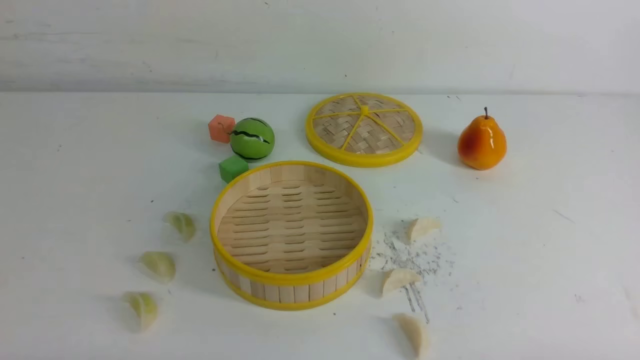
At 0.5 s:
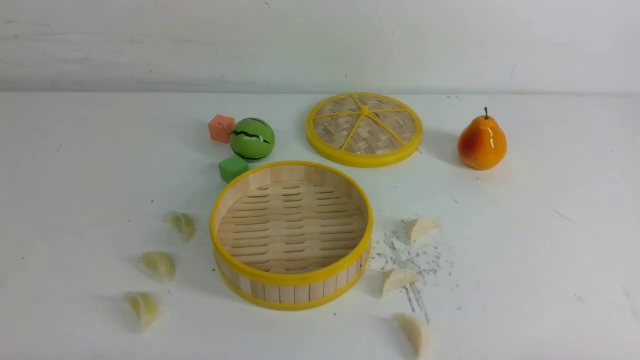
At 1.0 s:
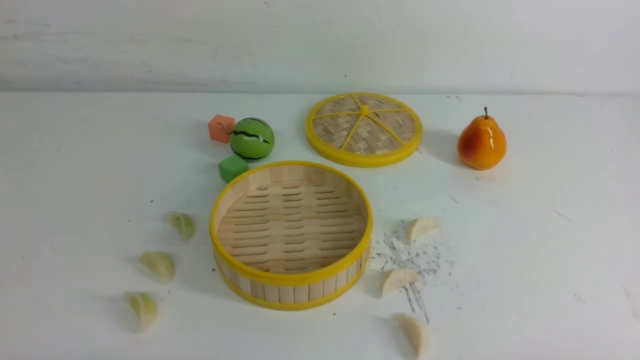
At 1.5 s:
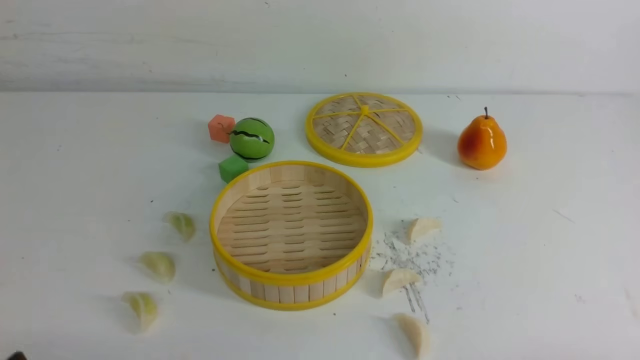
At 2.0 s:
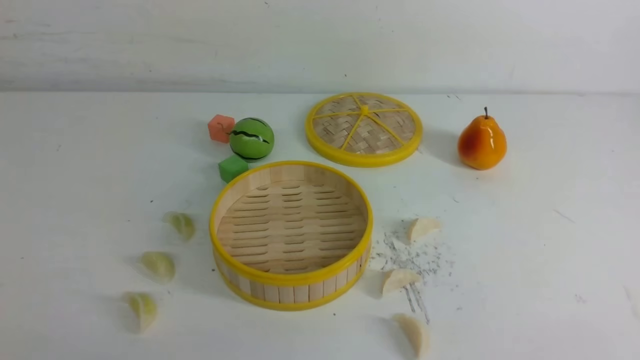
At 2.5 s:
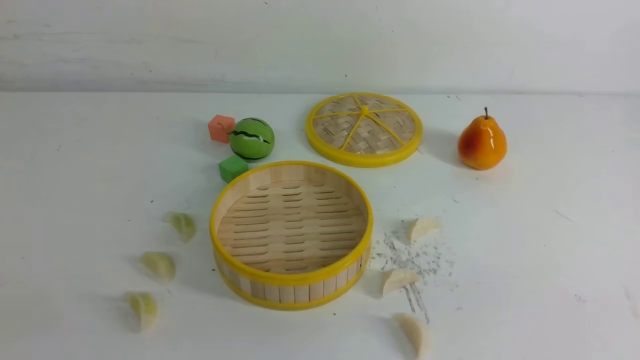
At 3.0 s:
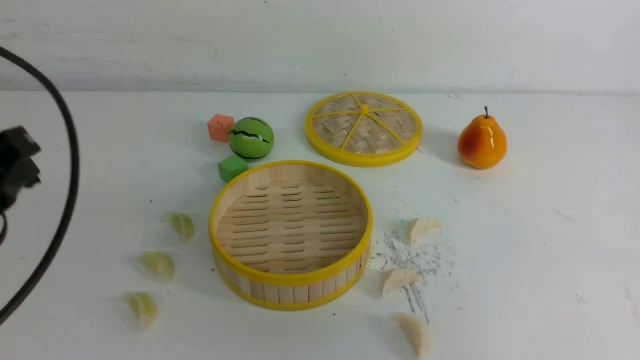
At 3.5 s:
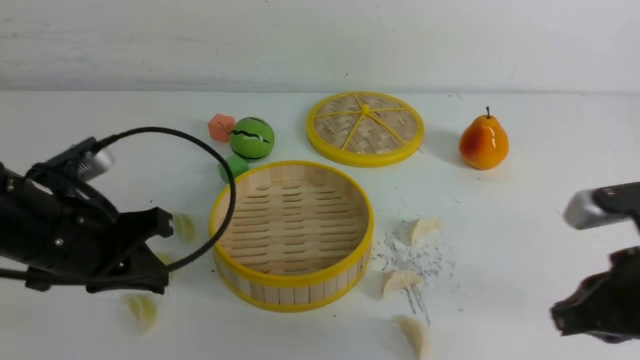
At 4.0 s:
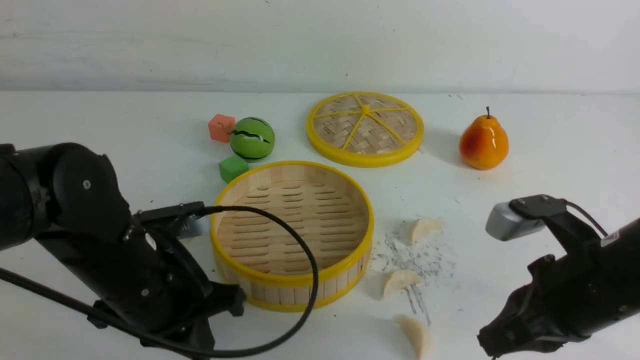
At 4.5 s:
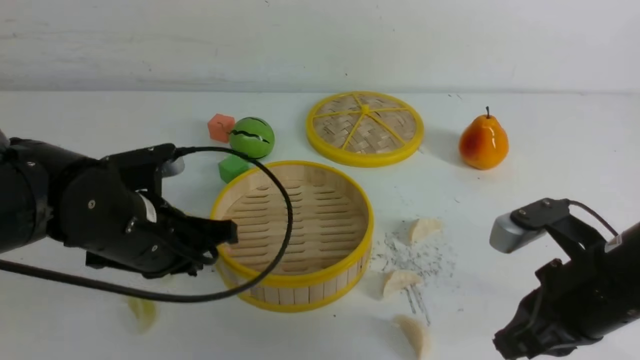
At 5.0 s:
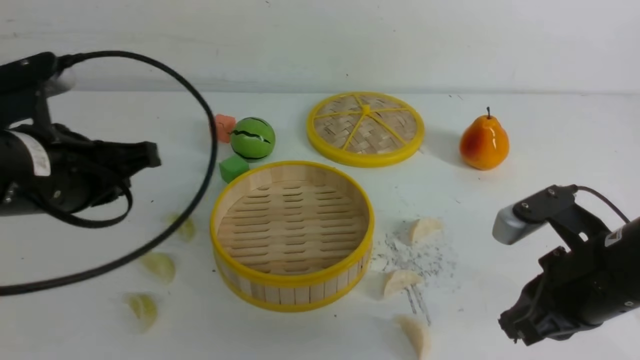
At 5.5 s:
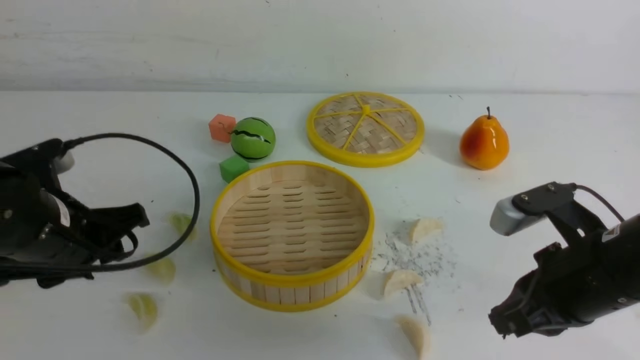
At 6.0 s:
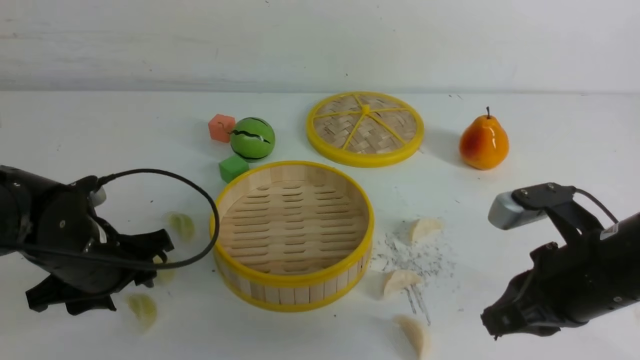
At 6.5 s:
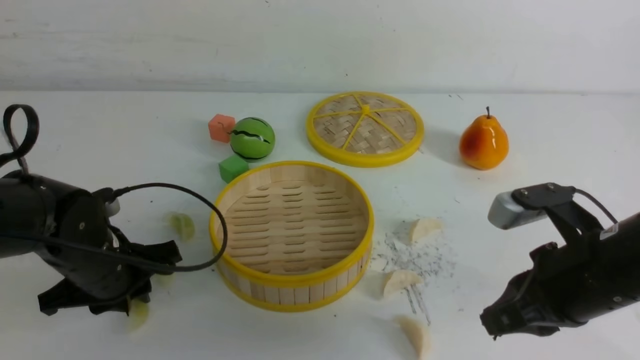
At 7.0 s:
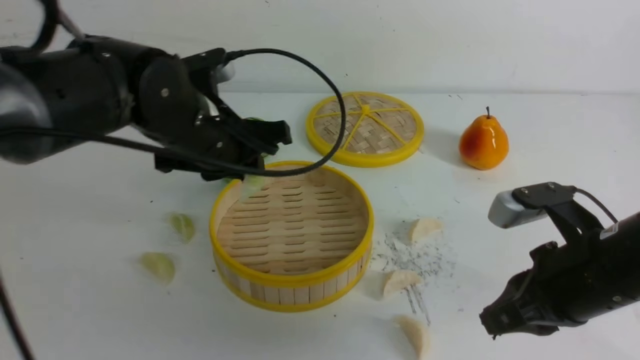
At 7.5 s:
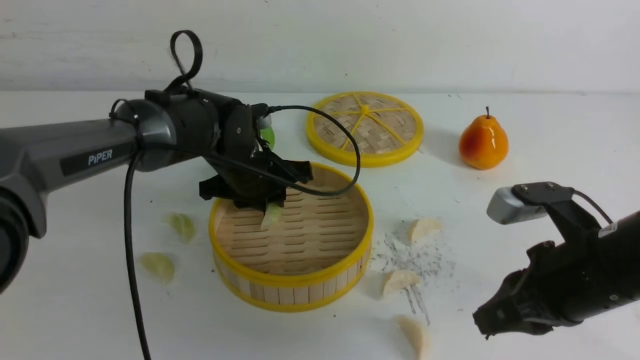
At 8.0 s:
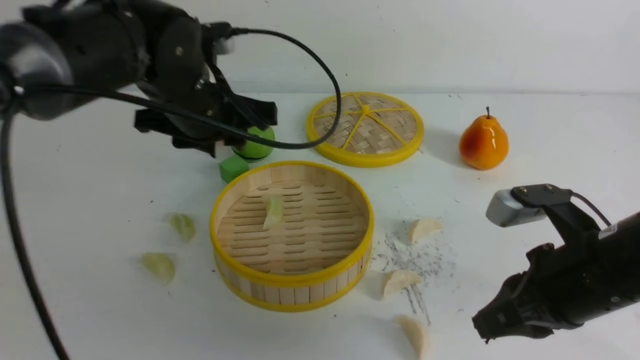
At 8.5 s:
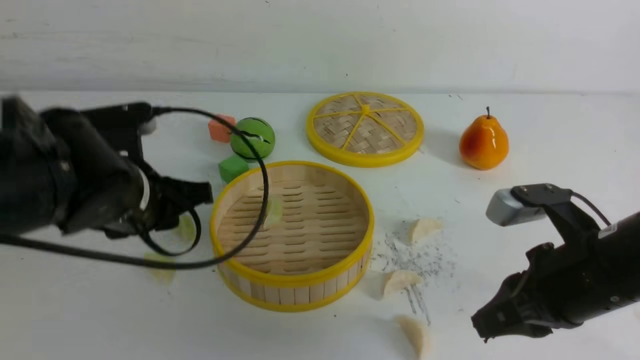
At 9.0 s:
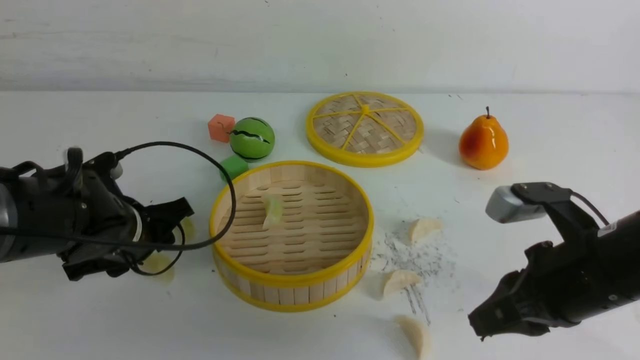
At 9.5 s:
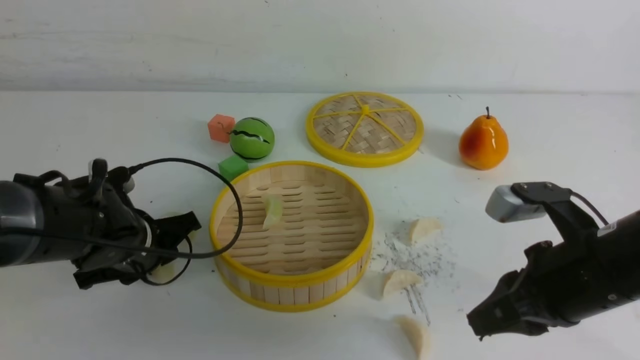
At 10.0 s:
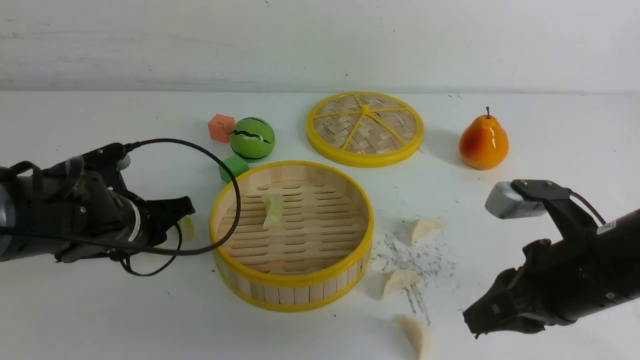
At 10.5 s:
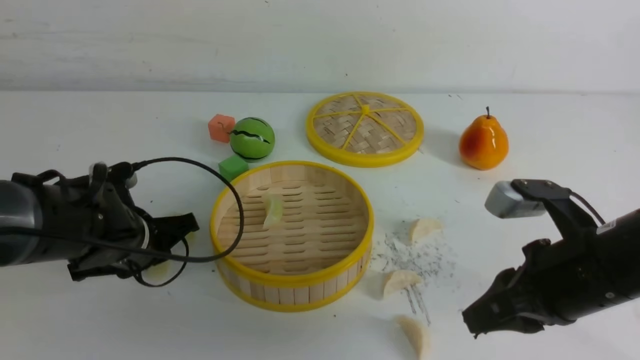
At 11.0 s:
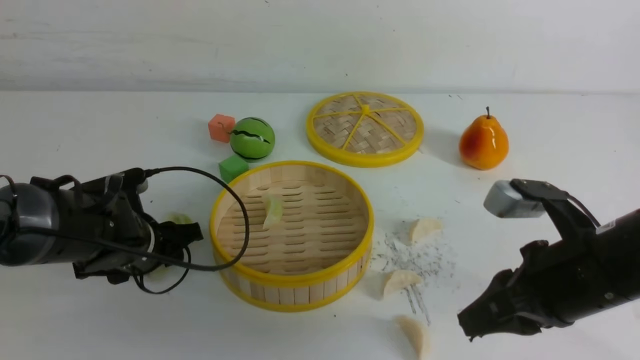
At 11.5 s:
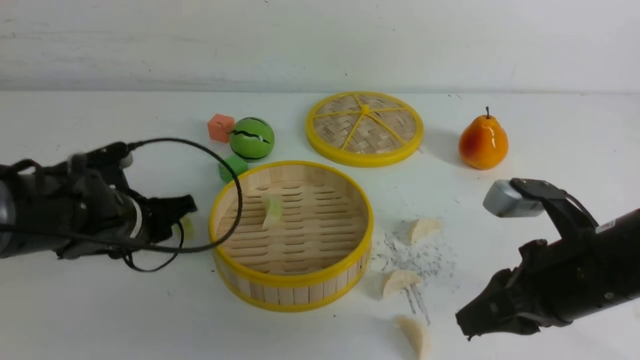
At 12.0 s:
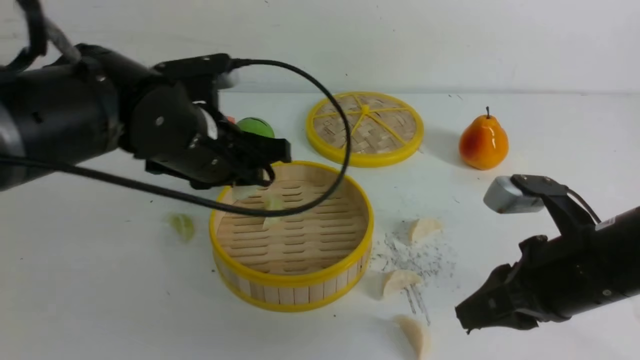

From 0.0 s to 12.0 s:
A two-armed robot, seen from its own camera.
Task of the whole recording: put the dumplings into the steamer on the white table.
Step, from 0.0 s to 6.5 s: use the left arm to grab a dumpling.
Step, from 7.0 s to 7.5 s: use the left arm to put the dumpling into the steamer.
Step, from 8.0 s to 9.5 s: use the left arm to grab a dumpling.
From 2.0 s to 4.0 s: The left gripper moves forward and to the right, approximately 20 cm, and closes. The right gripper goes about 20 cm forward and to the left.
From 4.0 s to 6.0 s: The left gripper is displaced to the left by some 5 cm, and opens.
From 6.0 s to 8.0 s: The left gripper moves upward, to the right and forward, approximately 20 cm, and closes, then reopens.
From 8.0 s to 10.0 s: The left gripper is displaced downward and to the left by roughly 15 cm.
From 10.0 s to 12.0 s: The left gripper moves upward and to the right, some 15 cm.

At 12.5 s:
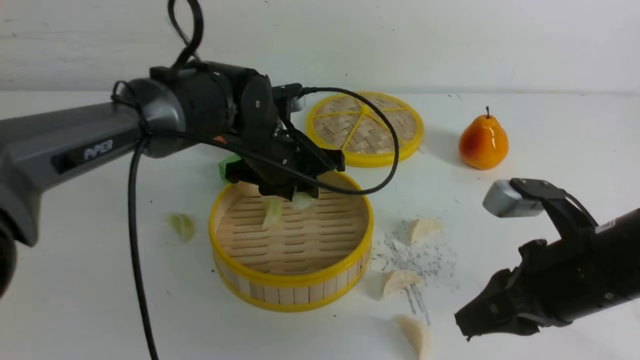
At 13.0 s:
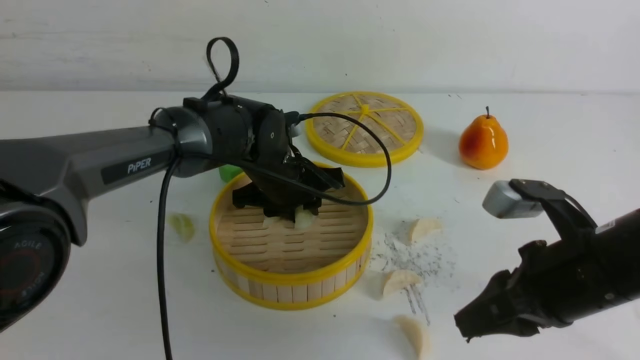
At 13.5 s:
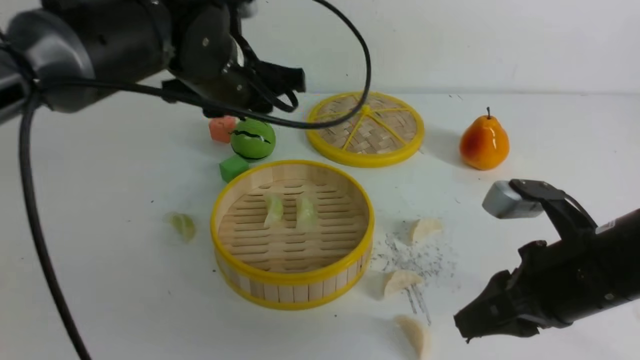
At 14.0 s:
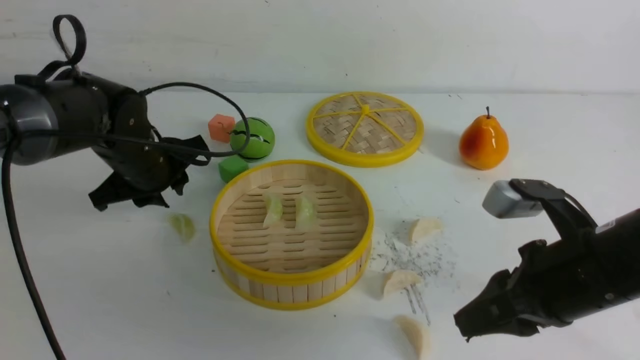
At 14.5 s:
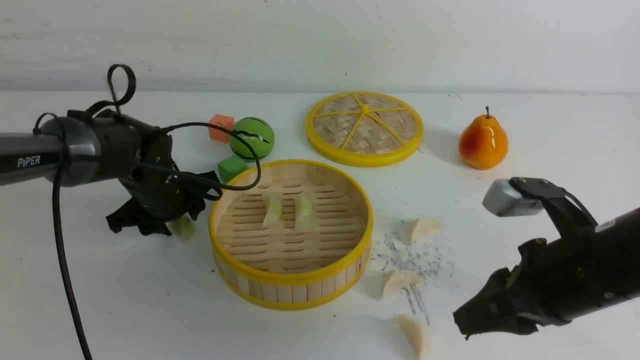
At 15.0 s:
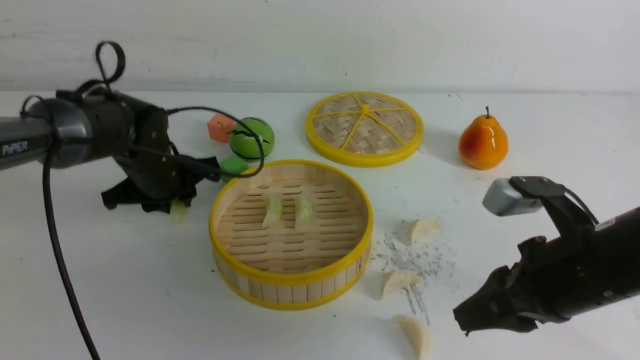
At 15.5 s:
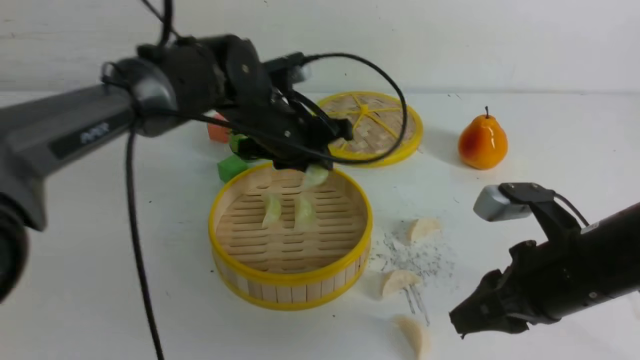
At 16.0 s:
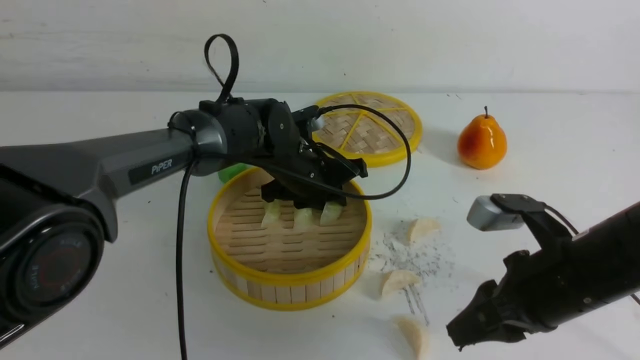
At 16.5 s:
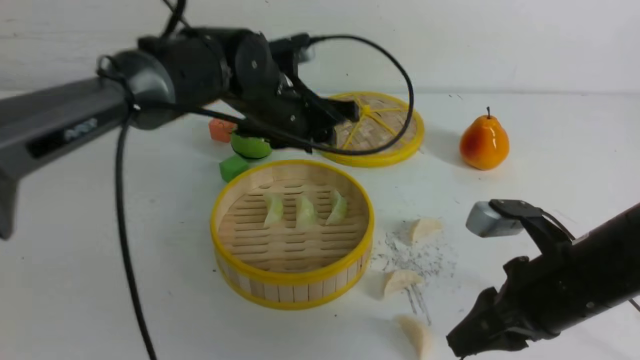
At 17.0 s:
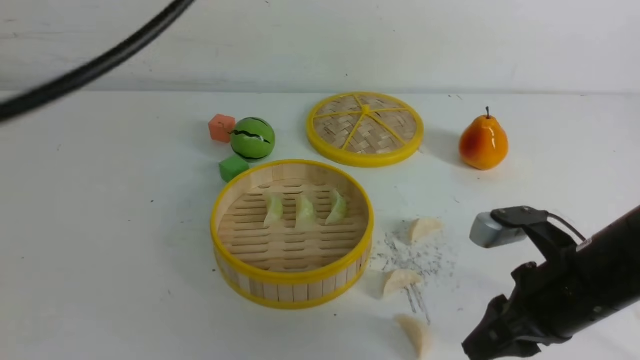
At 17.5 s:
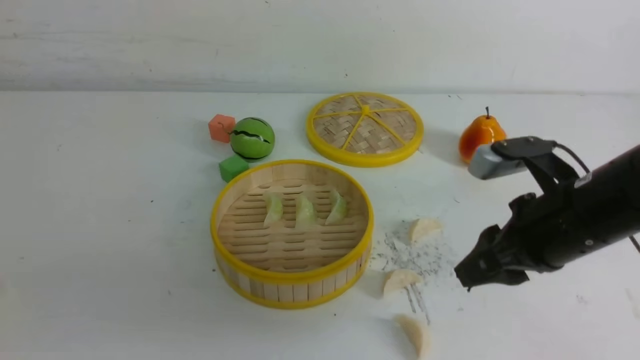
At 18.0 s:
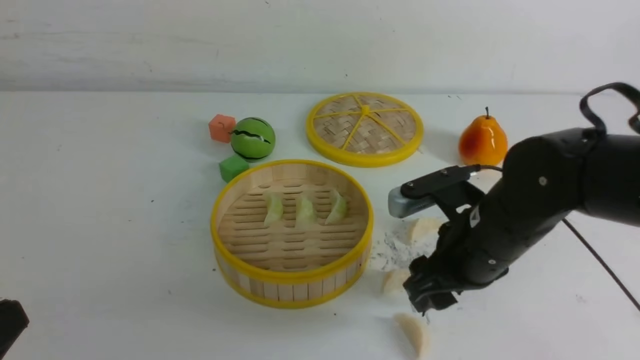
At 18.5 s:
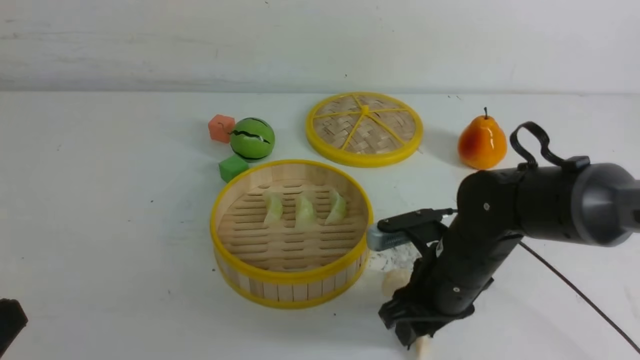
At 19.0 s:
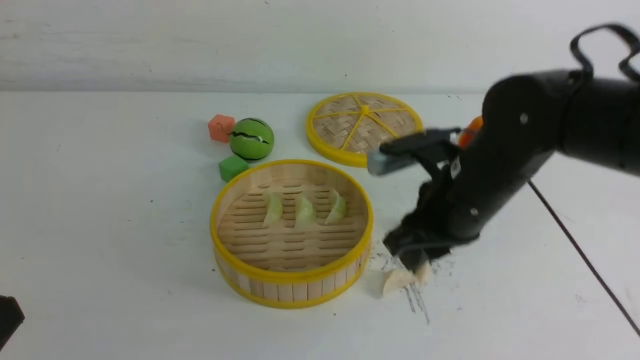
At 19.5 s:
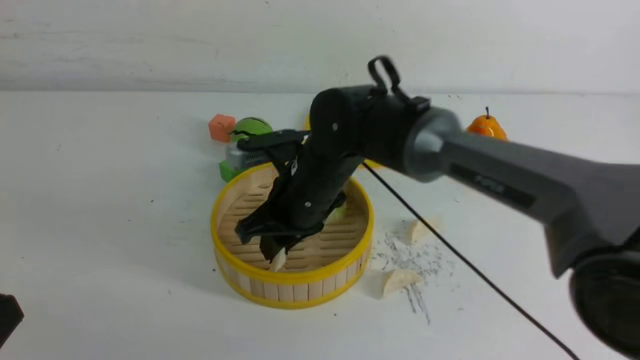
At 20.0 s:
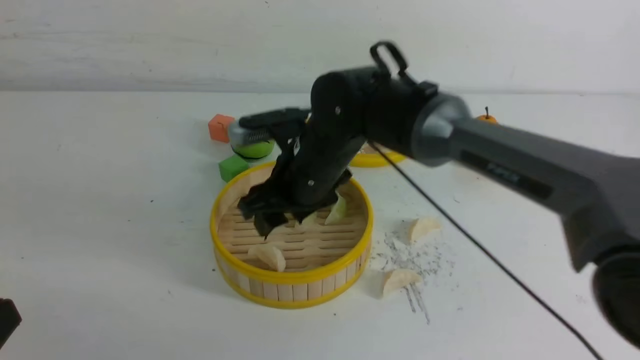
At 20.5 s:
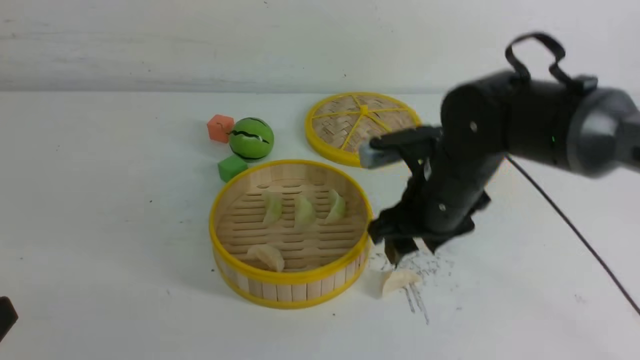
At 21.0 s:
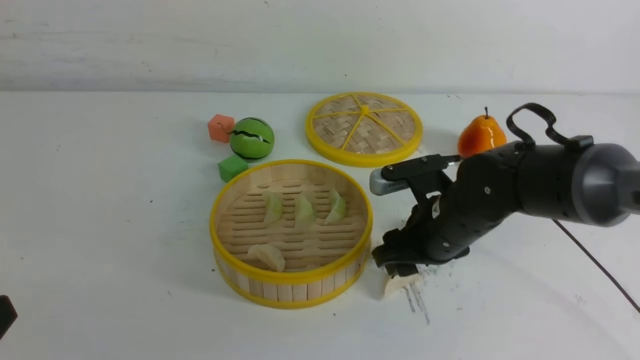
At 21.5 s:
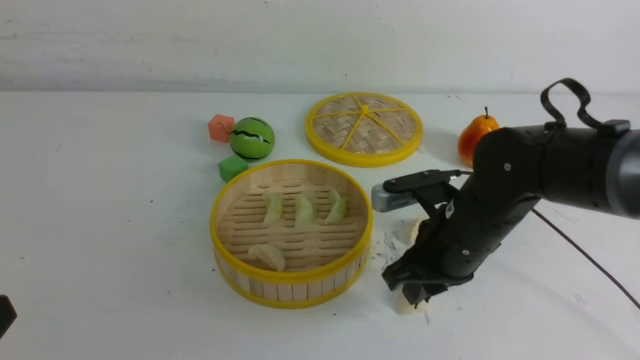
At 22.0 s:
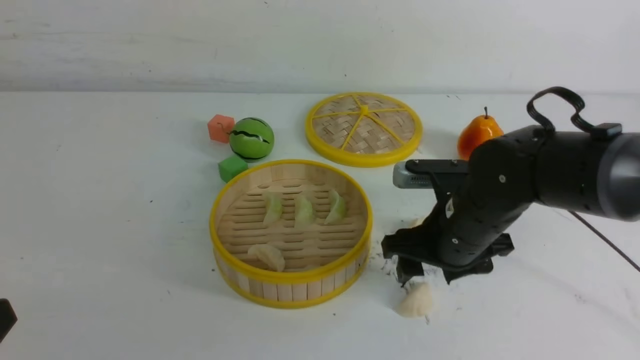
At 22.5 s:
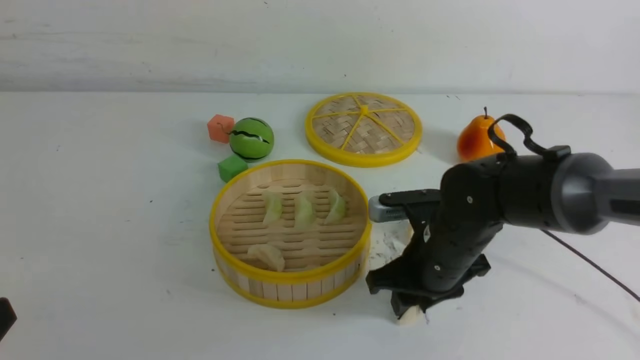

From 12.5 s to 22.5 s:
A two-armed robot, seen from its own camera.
Task of the whole recording: put the dumplings into the steamer on the white table.
Step, from 13.5 s to 14.5 s: use the left arm to grab a dumpling.
Step, from 15.5 s to 16.0 s: use the left arm to put the dumpling into the steamer.
Step, from 16.5 s to 18.5 s: use the right arm to grab a dumpling.
Step, from 19.0 s to 19.5 s: use the right arm to put the dumpling into the steamer.
From 12.5 s to 14.5 s: The left gripper moves to the left and downward, some 15 cm.
From 14.5 s to 16.5 s: The left gripper shifts some 20 cm upward and to the right.
From 16.5 s to 18.5 s: The right gripper goes approximately 10 cm to the left, downward and forward. Meanwhile the left gripper goes some 40 cm backward and to the left, and closes.
From 18.5 s to 20.5 s: The right gripper travels upward by about 5 cm, and reaches approximately 15 cm to the left, then returns.
From 20.5 s to 22.5 s: The right gripper goes about 5 cm downward, and closes its fingers.
